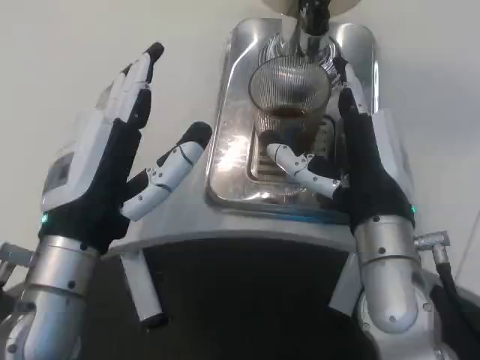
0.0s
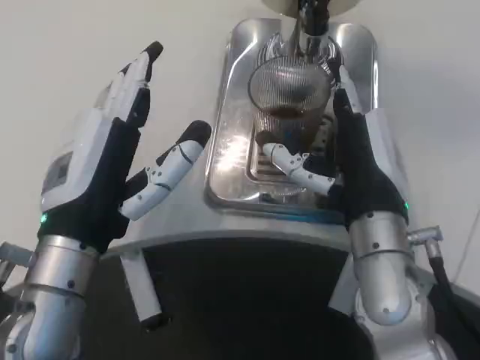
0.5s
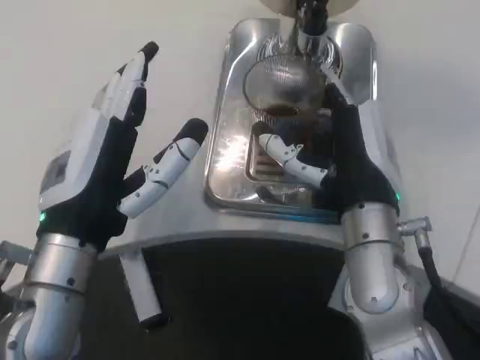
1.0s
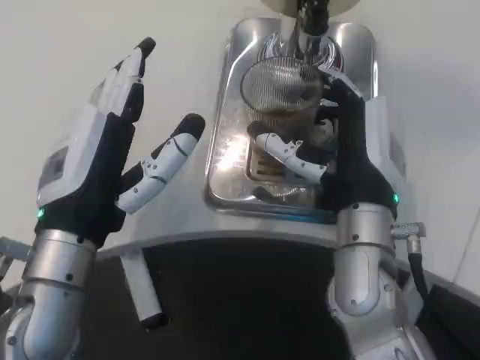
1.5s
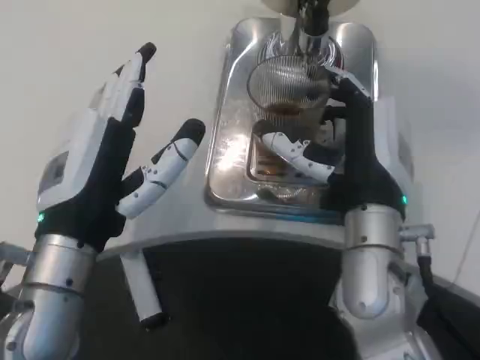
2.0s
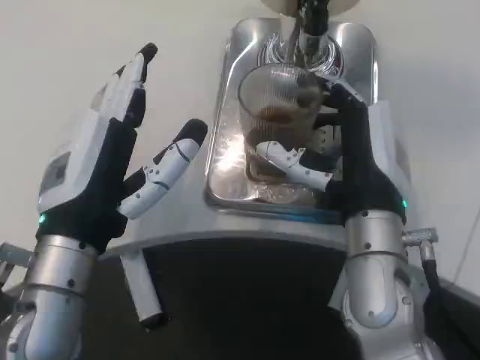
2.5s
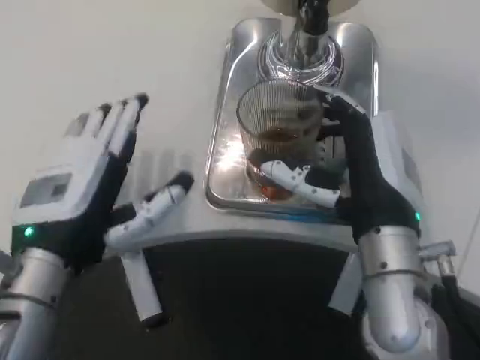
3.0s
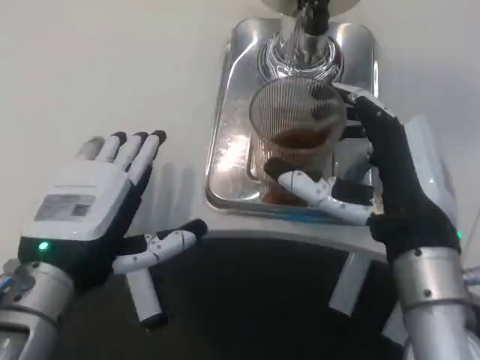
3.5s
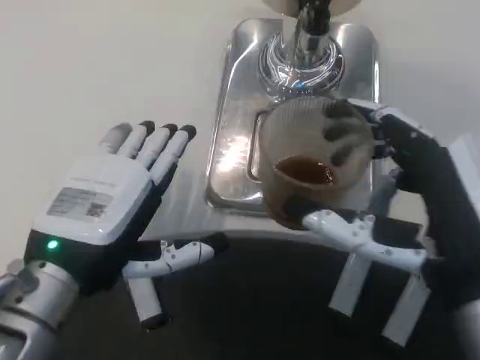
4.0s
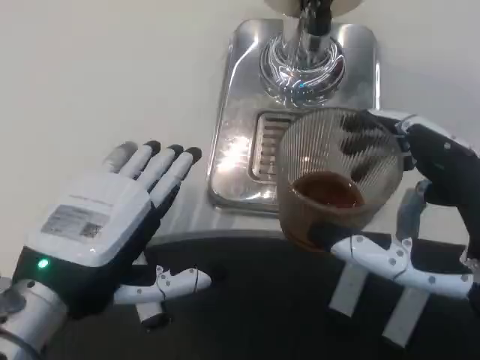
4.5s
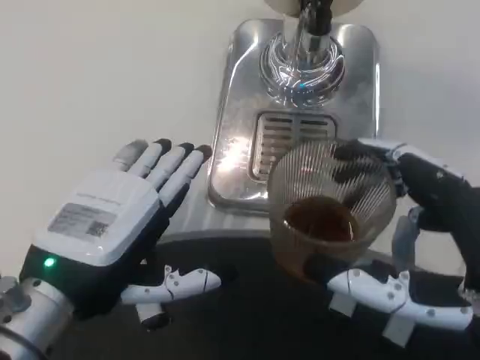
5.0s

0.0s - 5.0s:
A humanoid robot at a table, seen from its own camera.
Task of the whole recording: Grasp the cup under the faucet to collect the drink, then remove the cup.
0.0s - 2.5s: There are only small adjustments of the hands.
2.5s - 5.0s: The left hand moves approximately 5 cm. The right hand goes roughly 15 cm backward and to the right.

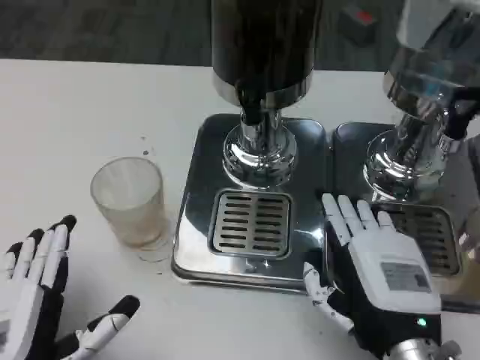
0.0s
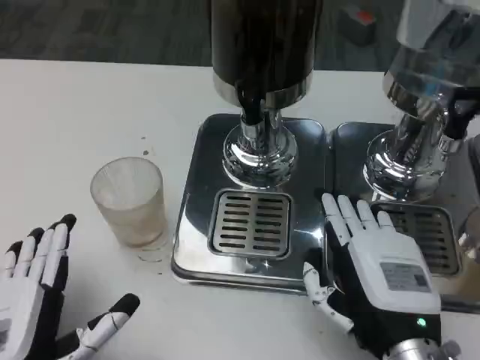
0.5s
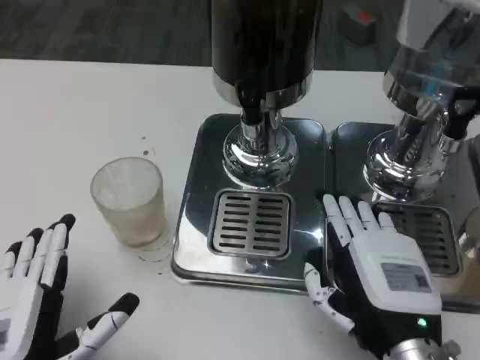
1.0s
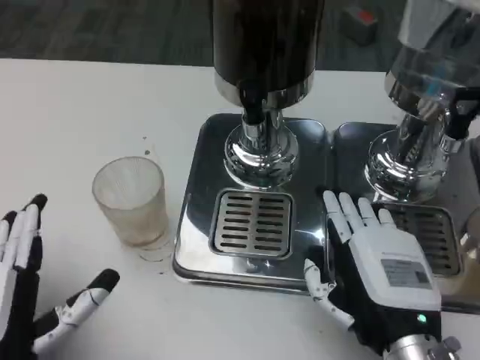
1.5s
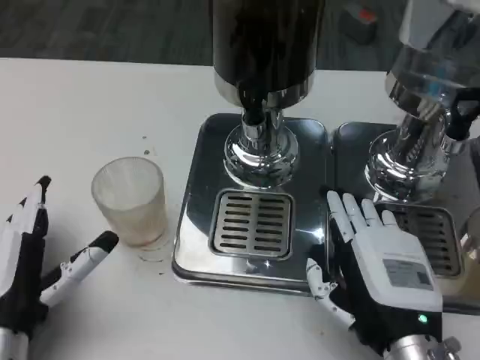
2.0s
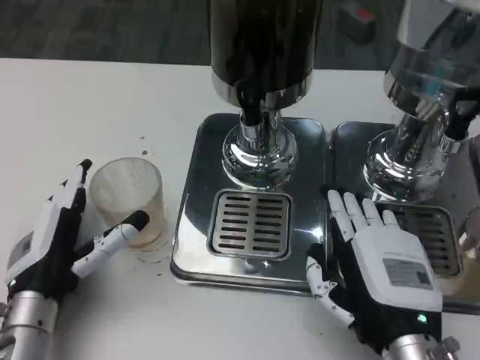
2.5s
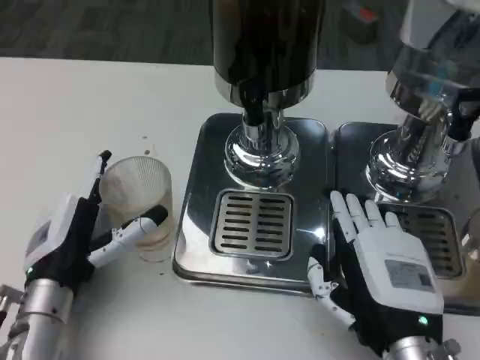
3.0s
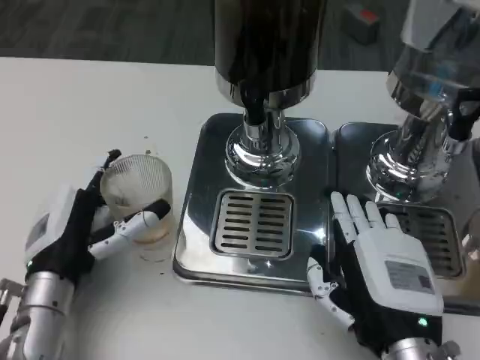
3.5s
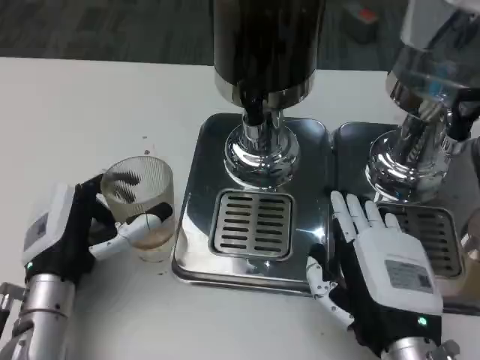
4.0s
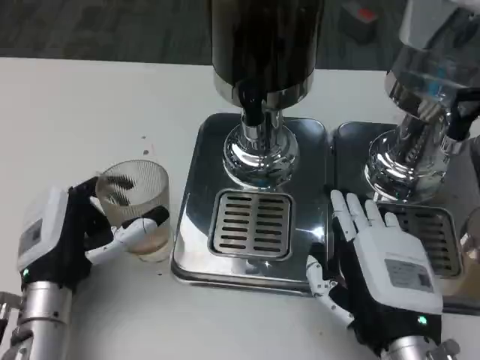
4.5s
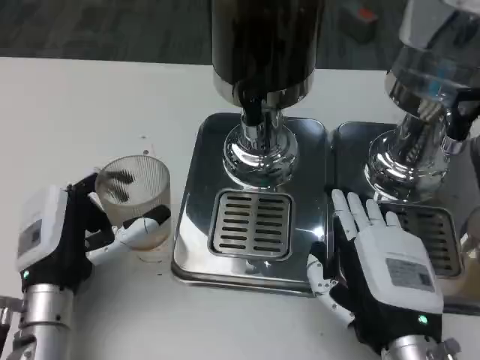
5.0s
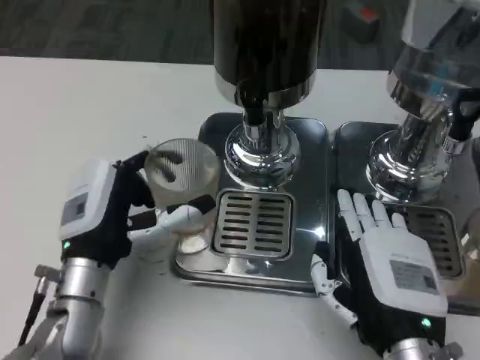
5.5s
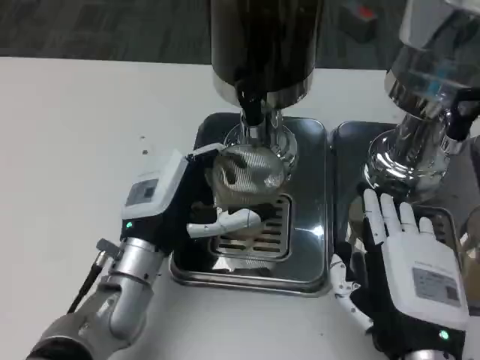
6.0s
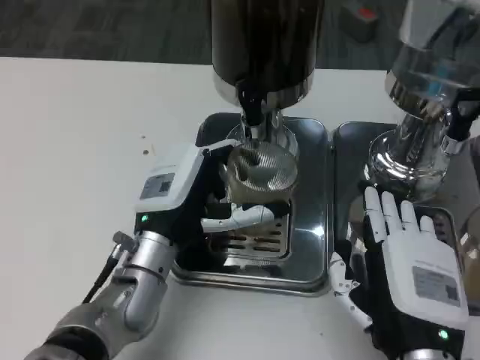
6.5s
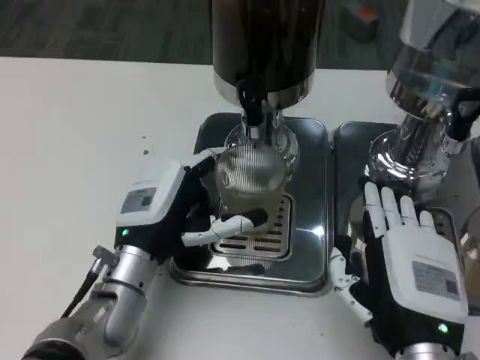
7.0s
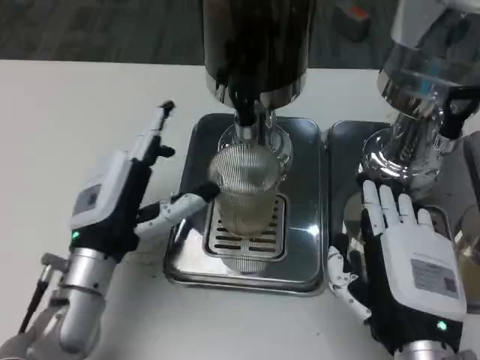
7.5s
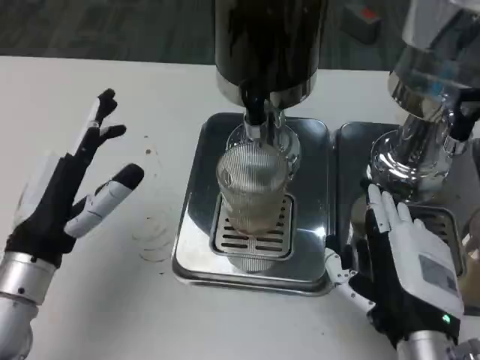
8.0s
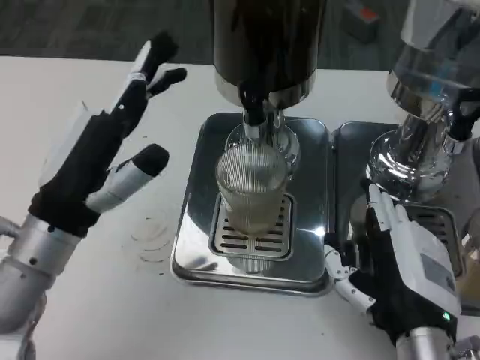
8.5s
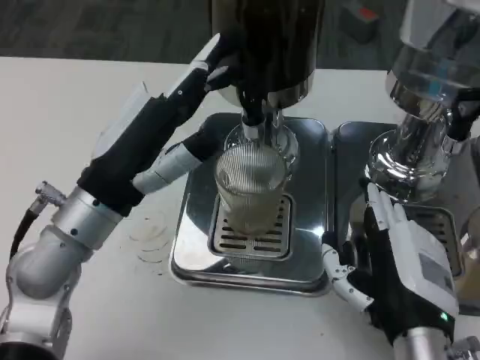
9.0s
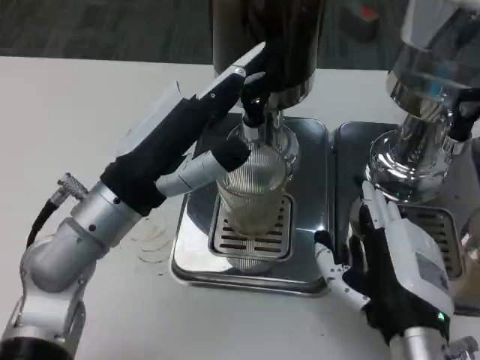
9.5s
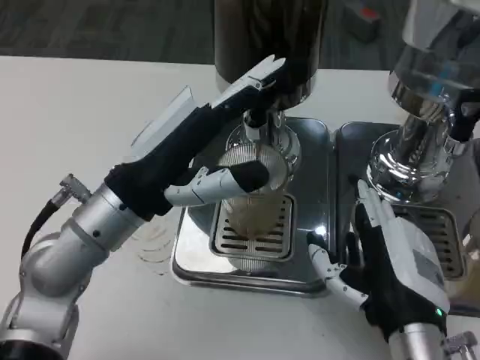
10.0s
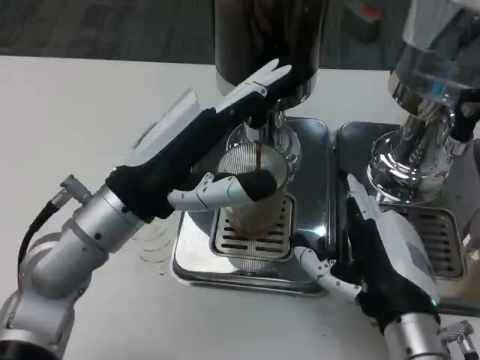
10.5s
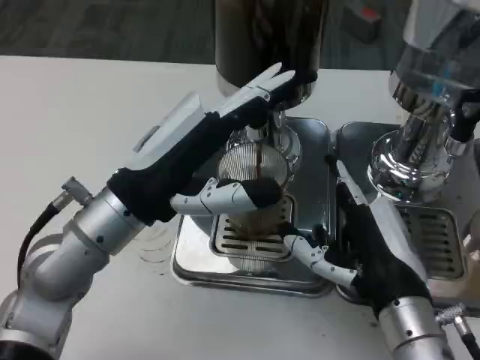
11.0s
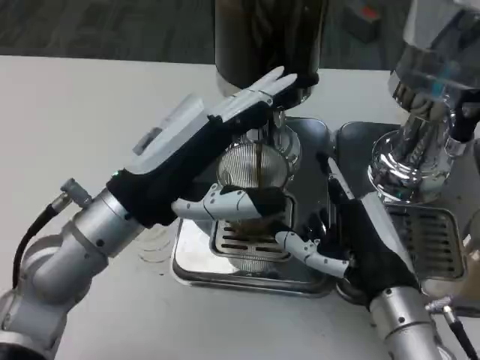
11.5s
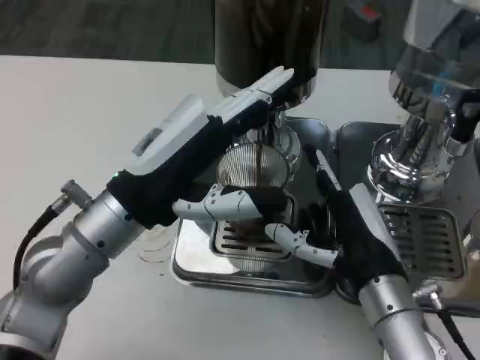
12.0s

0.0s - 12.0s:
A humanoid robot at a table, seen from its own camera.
Task of the whole recording: Grasp the cup under the faucet to collect the drink, then remove the cup.
0.0s - 2.0s: The left hand shifts approximately 5 cm forward.
2.0s - 4.0s: The left hand travels forward by some 5 cm.
4.0s - 6.0s: The left hand shifts approximately 5 cm to the right.
6.0s - 8.0s: The left hand travels to the left by some 10 cm.
8.0s - 10.0s: The left hand moves to the right and upward, some 10 cm.

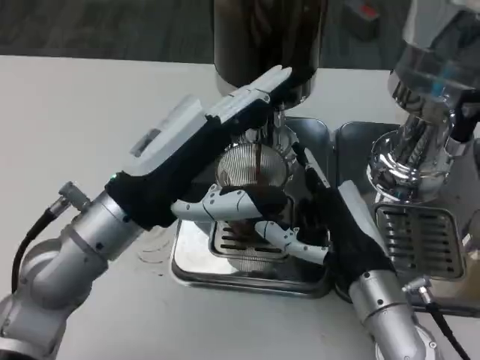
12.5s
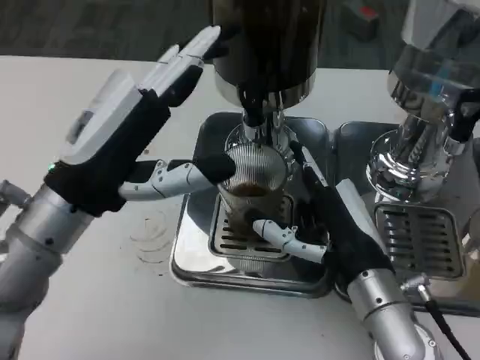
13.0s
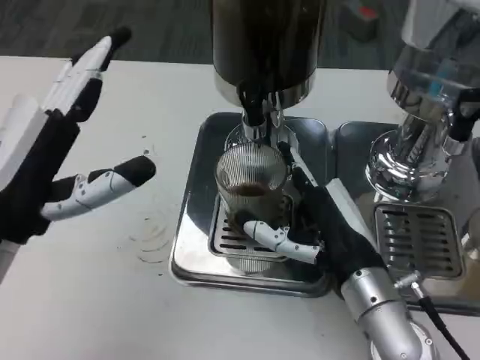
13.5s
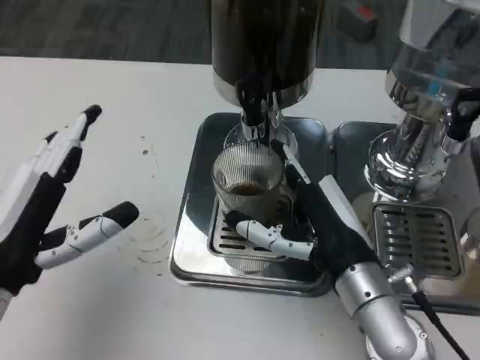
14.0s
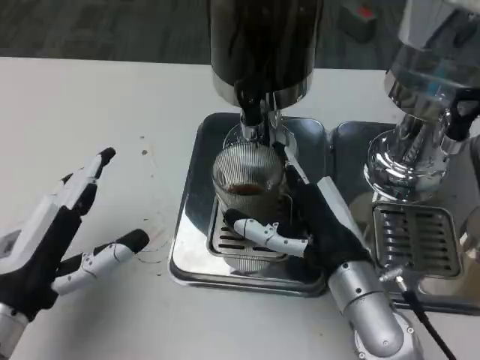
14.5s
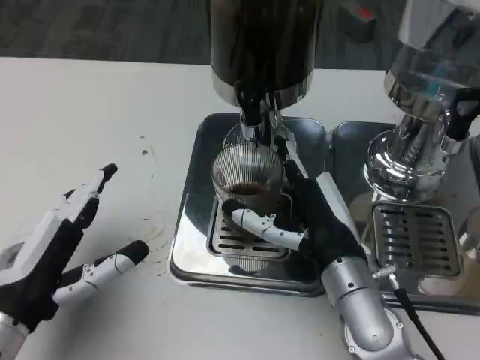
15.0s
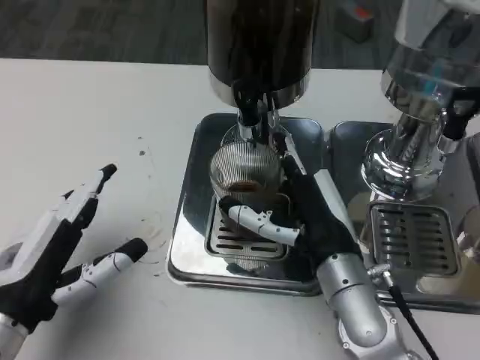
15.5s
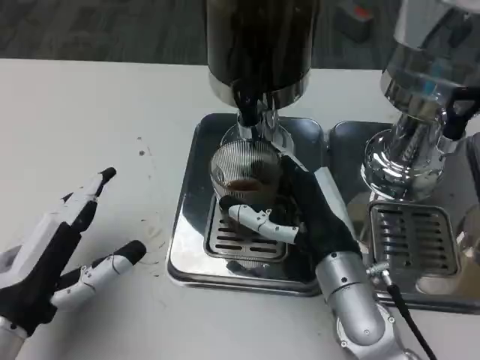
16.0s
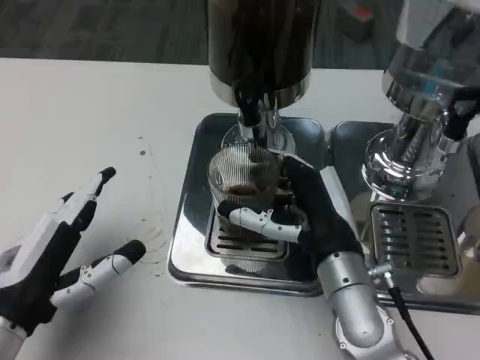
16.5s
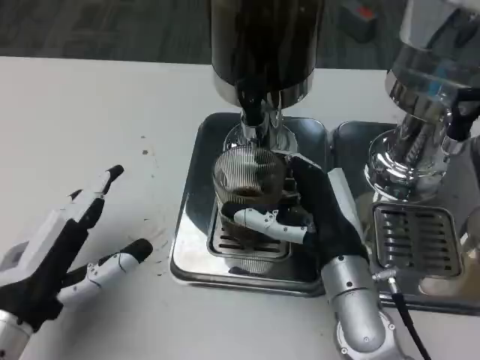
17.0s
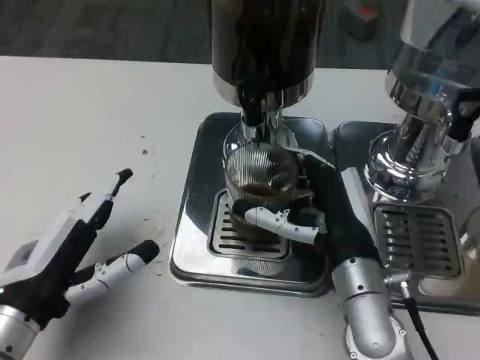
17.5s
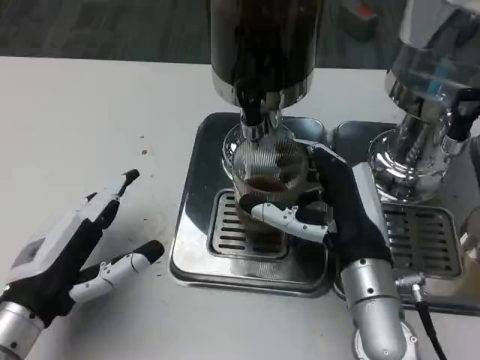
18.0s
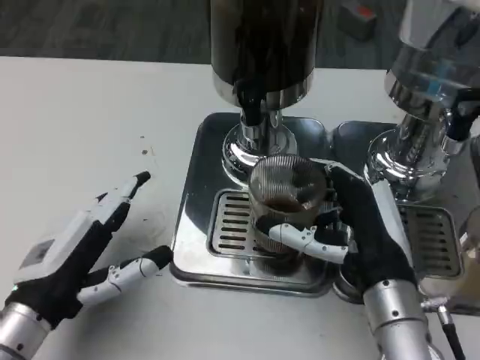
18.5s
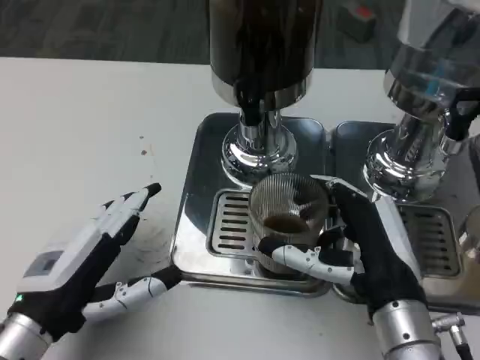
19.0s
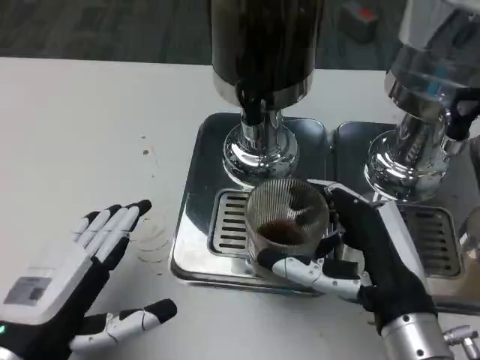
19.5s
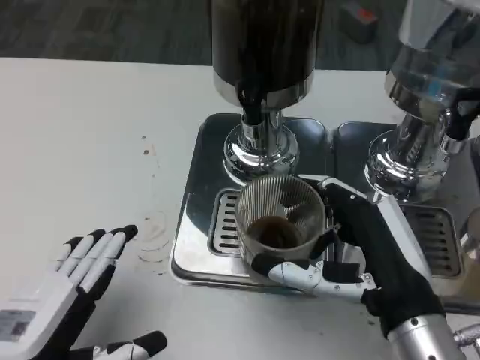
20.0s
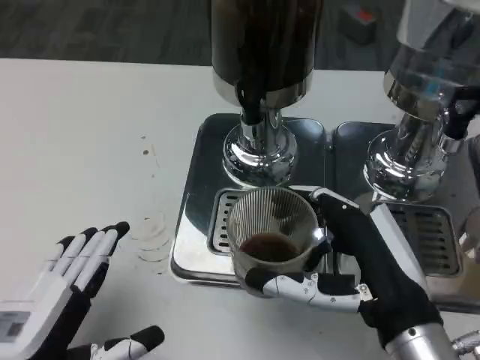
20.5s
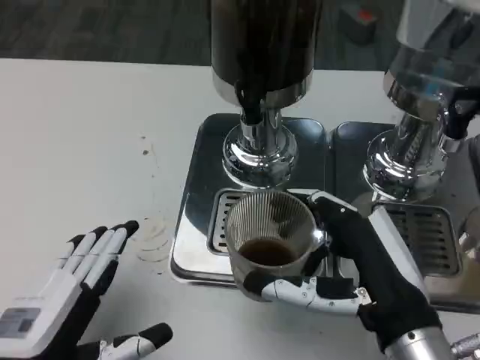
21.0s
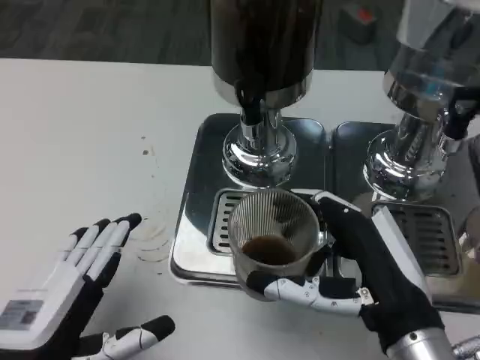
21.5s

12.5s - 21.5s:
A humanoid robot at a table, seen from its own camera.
Task of the whole recording: Grasp the cup under the faucet to collect the drink, then remove the cup.
12.5s - 14.5s: The left hand moves to the left, backward and downward, about 15 cm.
14.5s - 17.0s: There are only small adjustments of the hands.
17.0s - 19.5s: The right hand shifts approximately 5 cm backward.
